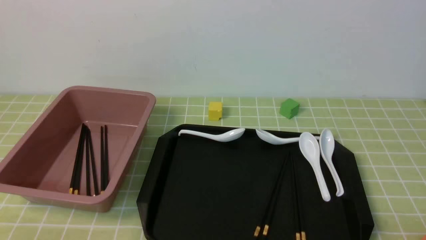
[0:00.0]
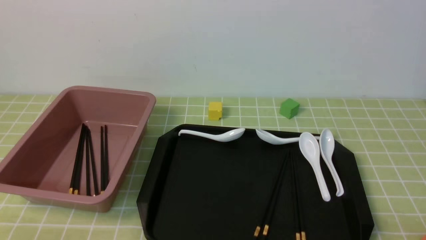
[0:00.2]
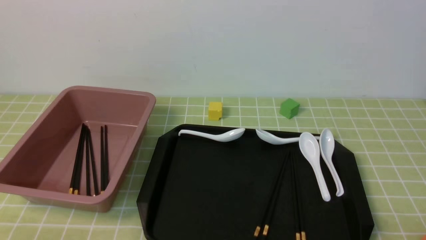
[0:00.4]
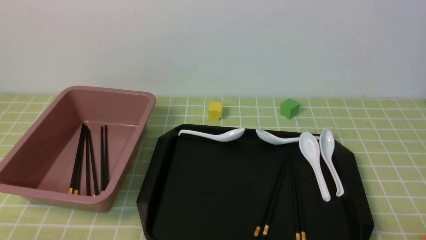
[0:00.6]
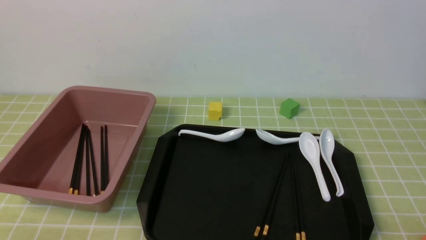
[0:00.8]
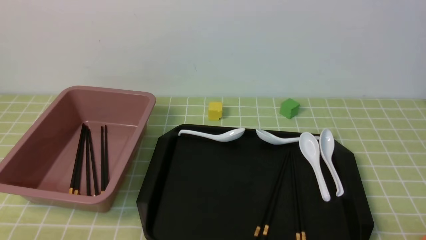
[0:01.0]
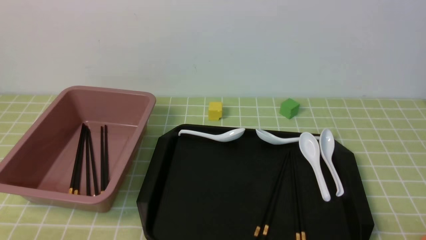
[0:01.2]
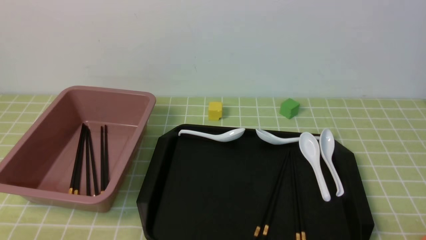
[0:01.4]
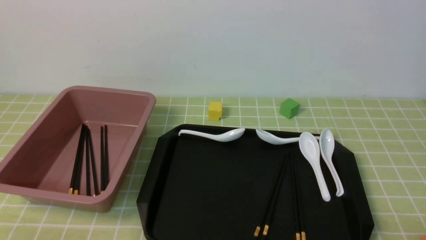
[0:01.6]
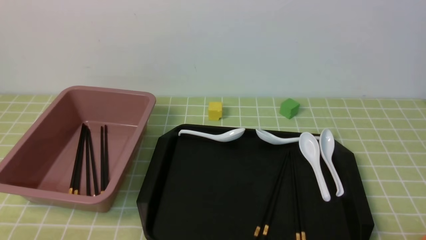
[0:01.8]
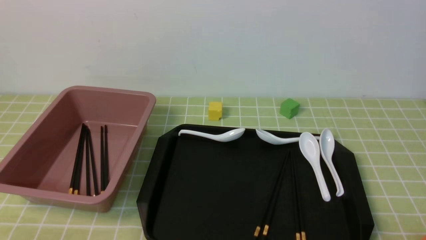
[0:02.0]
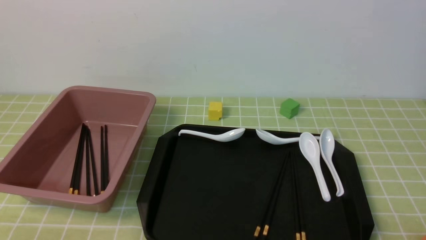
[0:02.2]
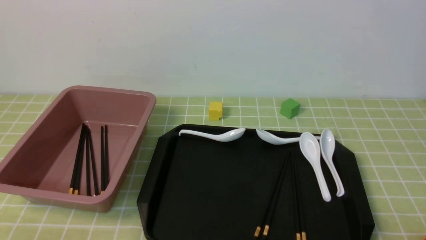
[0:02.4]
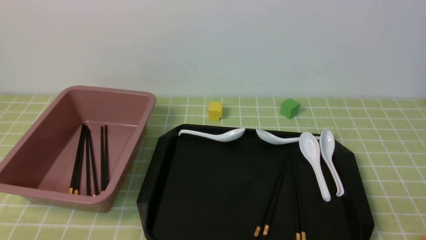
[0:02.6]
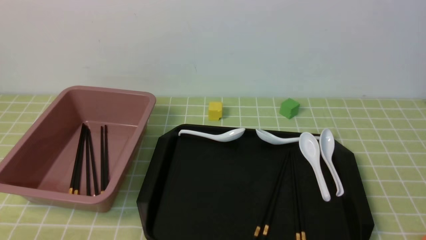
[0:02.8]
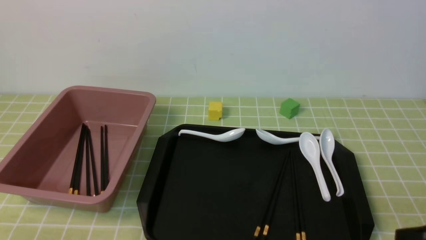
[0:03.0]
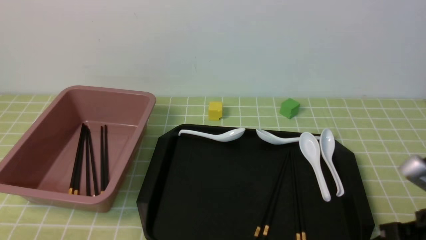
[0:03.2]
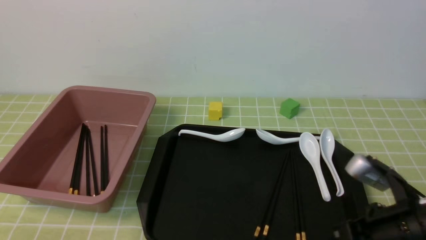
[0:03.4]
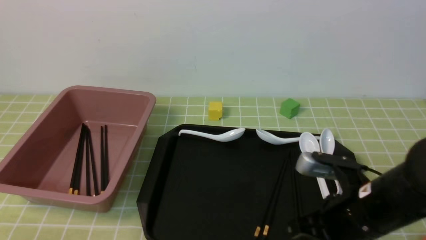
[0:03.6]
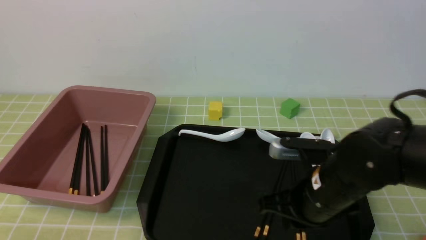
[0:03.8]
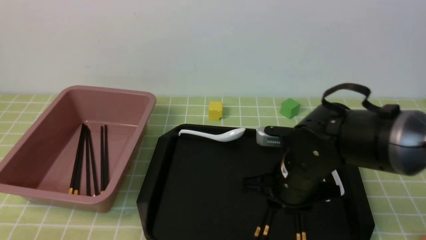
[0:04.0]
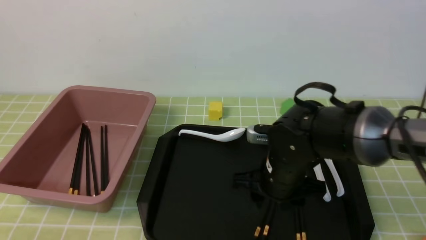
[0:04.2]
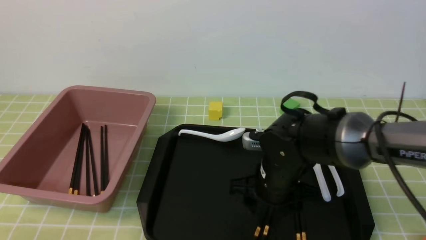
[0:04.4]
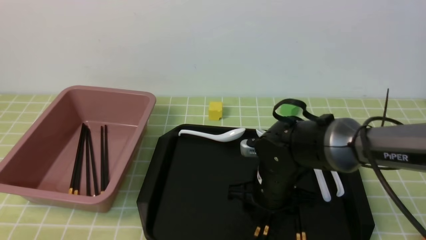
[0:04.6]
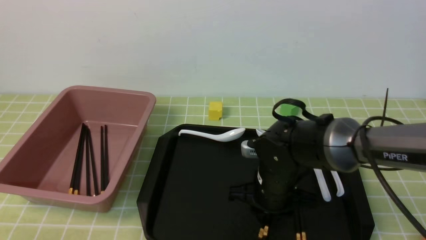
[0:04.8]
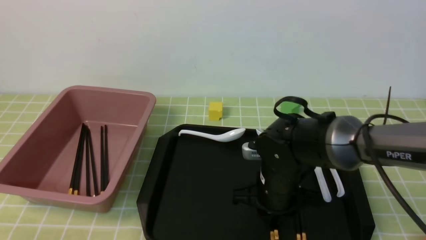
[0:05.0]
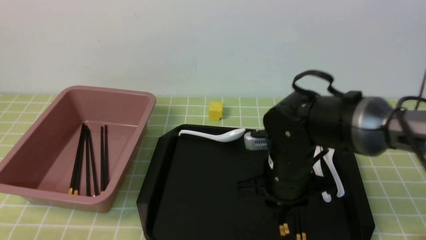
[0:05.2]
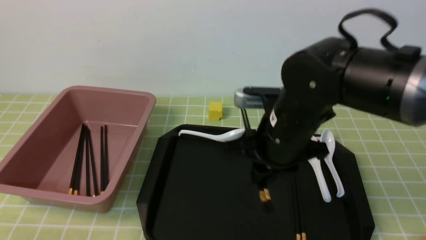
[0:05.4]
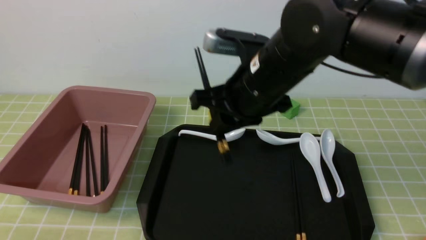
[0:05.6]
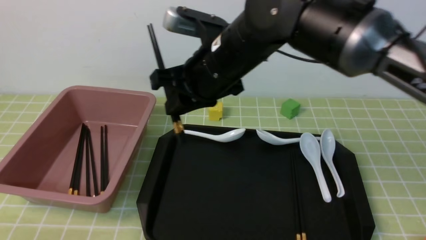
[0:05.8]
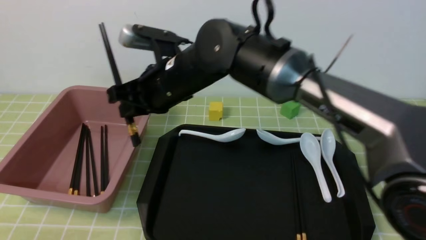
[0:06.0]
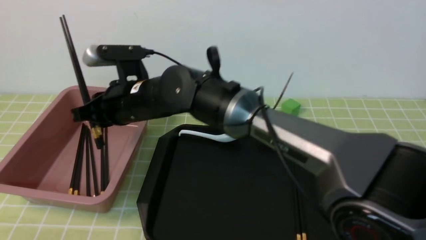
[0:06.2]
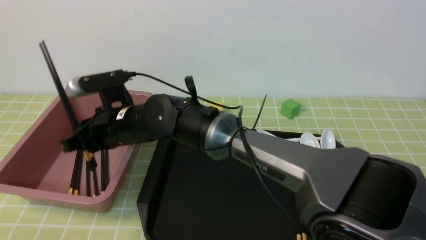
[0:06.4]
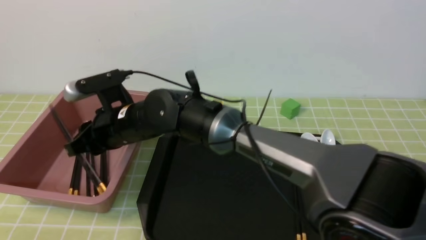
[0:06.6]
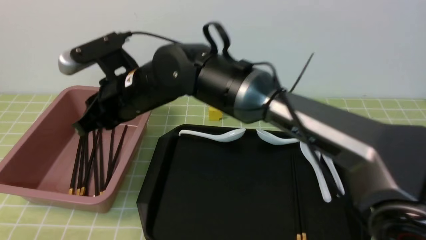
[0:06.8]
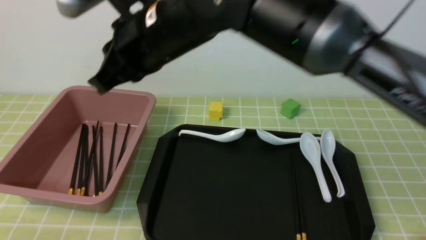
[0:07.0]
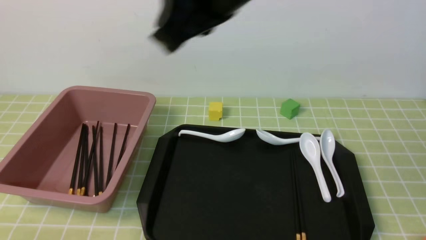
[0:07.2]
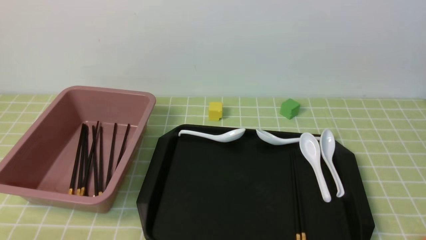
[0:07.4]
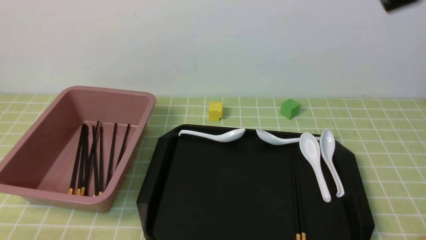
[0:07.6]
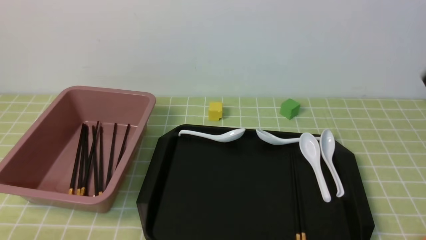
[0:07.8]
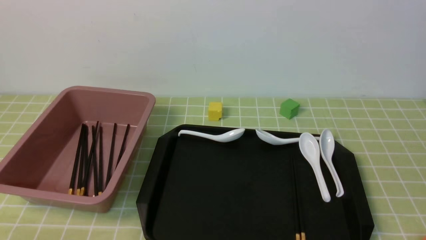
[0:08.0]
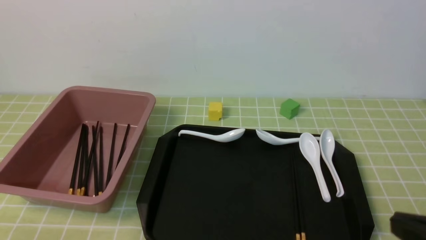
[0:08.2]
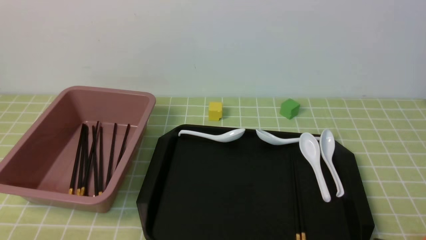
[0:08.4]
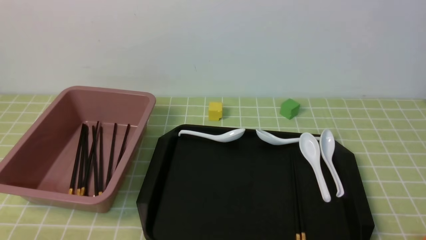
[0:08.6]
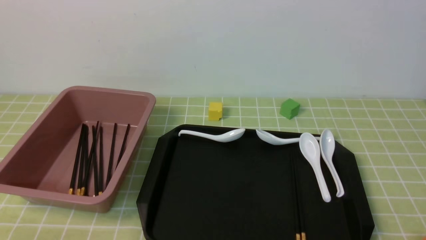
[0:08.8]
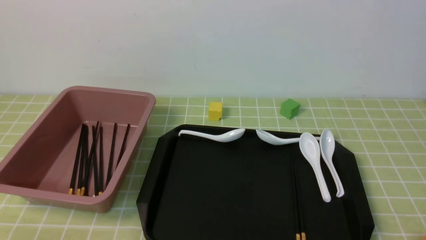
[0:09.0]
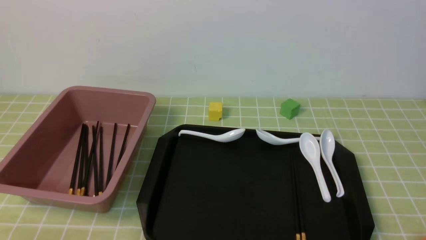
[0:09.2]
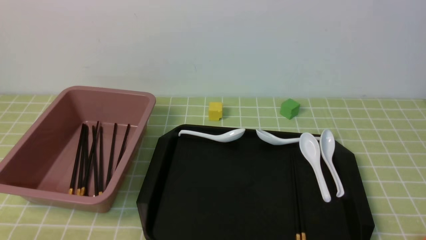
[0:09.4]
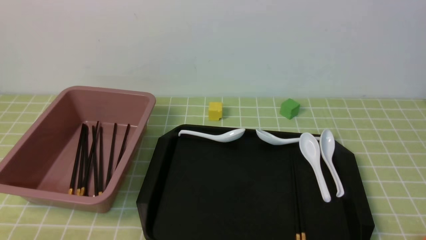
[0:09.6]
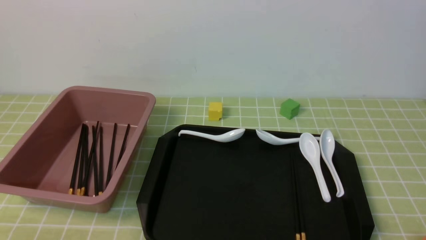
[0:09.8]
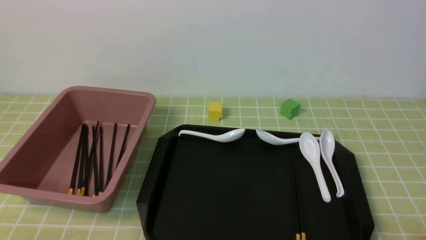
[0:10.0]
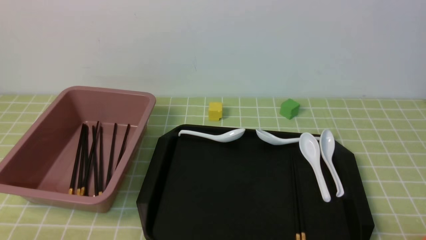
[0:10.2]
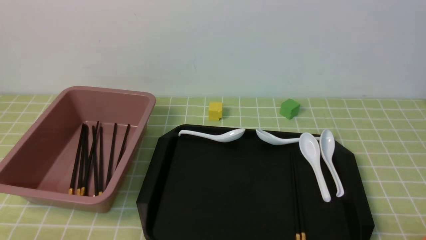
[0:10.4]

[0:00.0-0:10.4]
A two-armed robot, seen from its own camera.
Step, 0:00.0 to 0:05.2: use the right arm to grab a pair of chopsticks.
Step, 0:05.4 to 0:06.8: use the right arm to put the chopsticks into the lunch box.
0:03.0 to 0:04.4: The right gripper travels forward, to the left and downward by roughly 30 cm, and opens up.
0:04.4 to 0:06.0: The right gripper is displaced upward, to the left and forward by approximately 20 cm, and closes.
0:06.0 to 0:07.4: The right gripper travels upward, backward and to the right by about 25 cm, and closes.

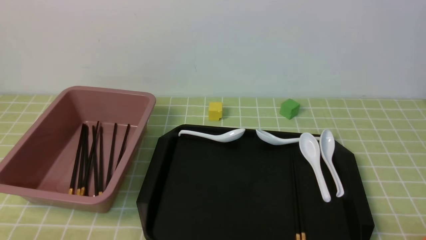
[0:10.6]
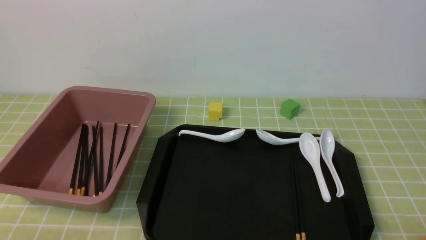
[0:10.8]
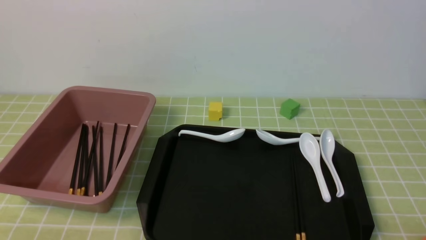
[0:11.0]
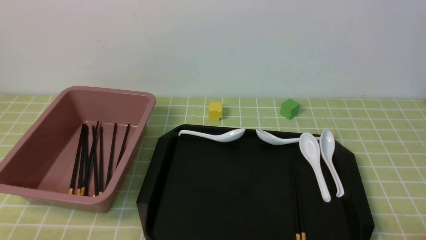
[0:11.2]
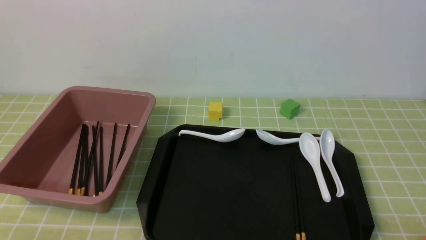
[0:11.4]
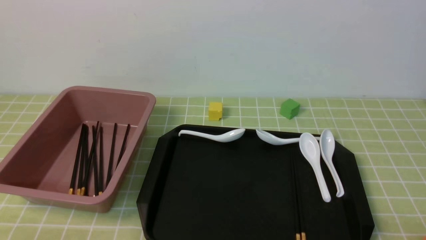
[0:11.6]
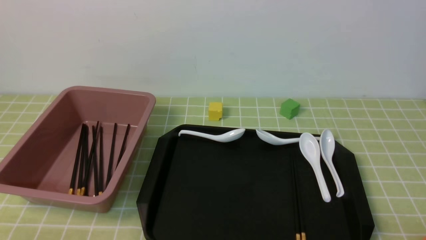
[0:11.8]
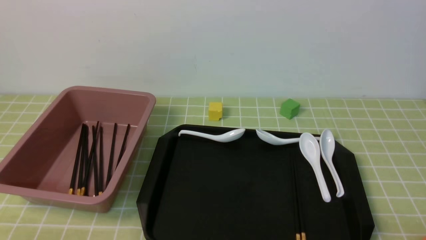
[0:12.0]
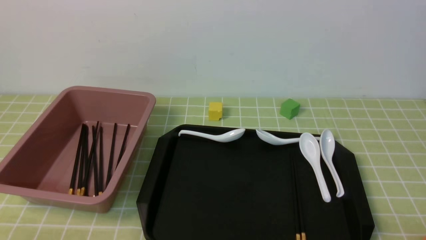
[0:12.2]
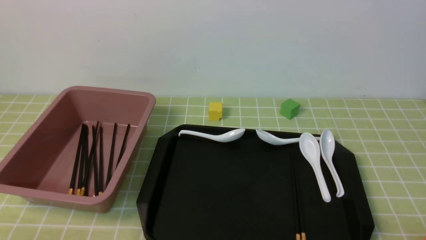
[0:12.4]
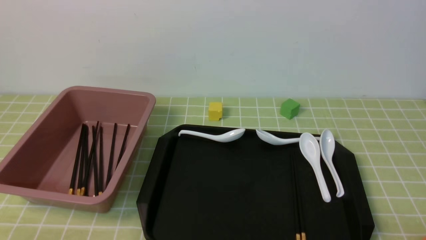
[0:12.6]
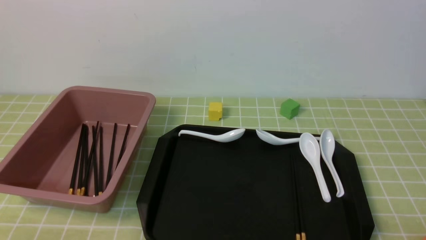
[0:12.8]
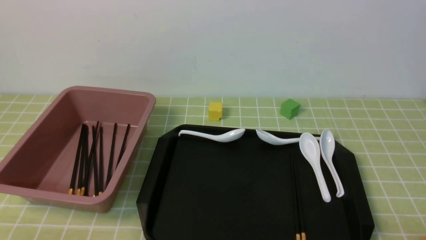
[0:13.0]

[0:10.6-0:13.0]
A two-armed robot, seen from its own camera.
0:10.6 to 0:13.0: The two grippers keep their place.
